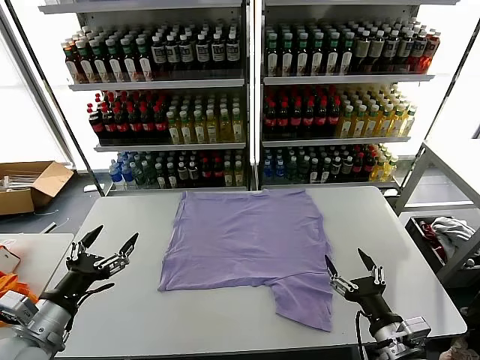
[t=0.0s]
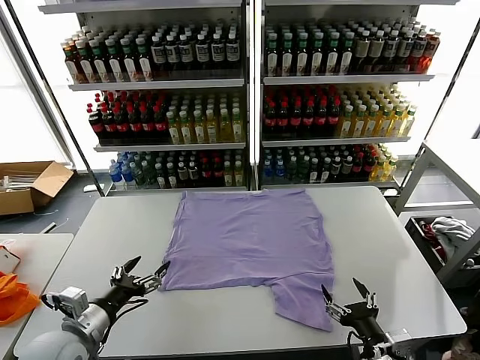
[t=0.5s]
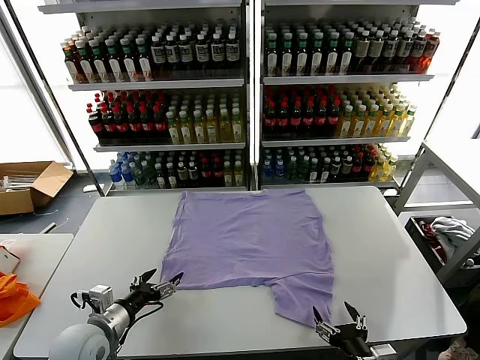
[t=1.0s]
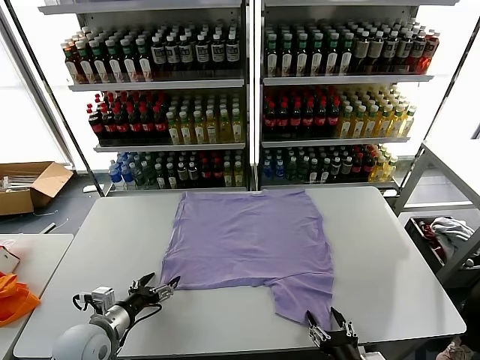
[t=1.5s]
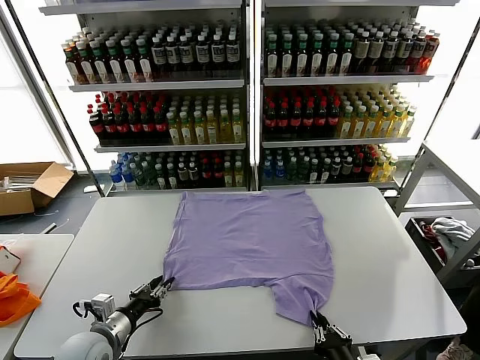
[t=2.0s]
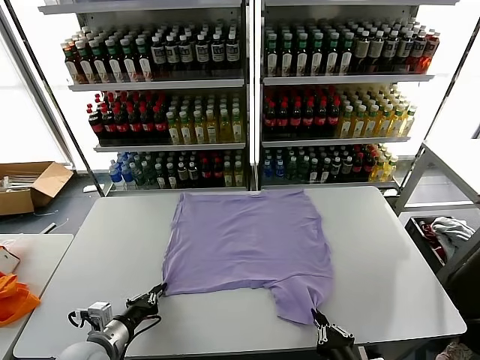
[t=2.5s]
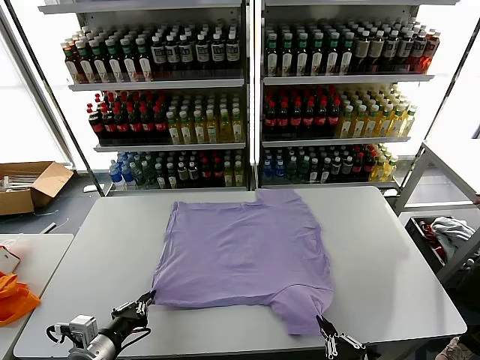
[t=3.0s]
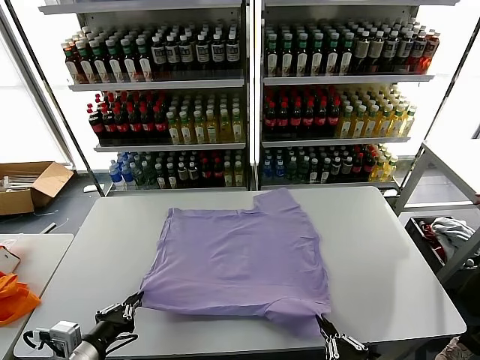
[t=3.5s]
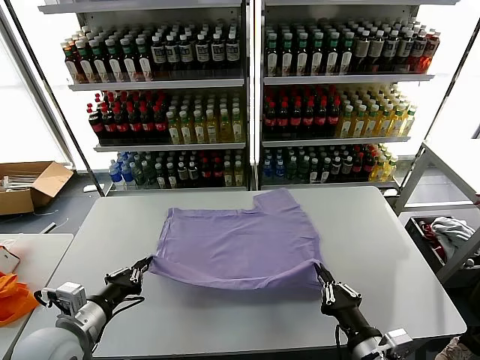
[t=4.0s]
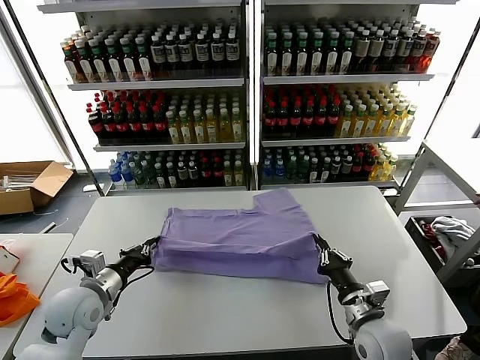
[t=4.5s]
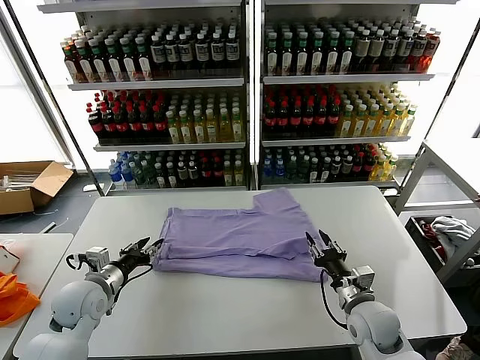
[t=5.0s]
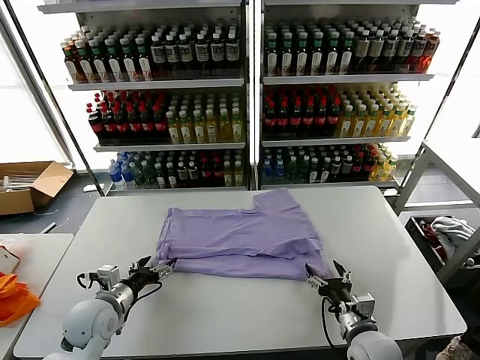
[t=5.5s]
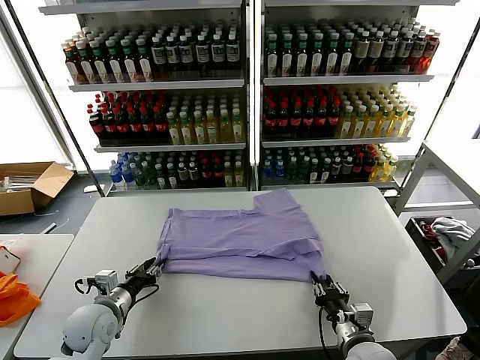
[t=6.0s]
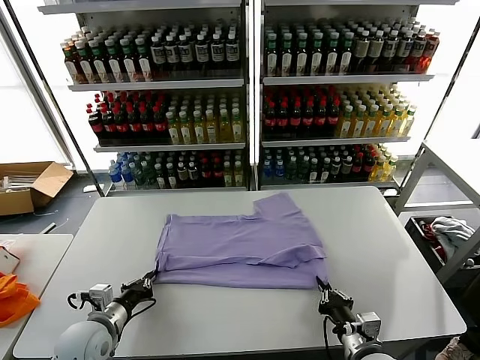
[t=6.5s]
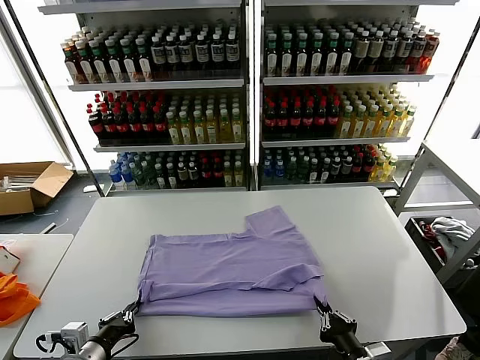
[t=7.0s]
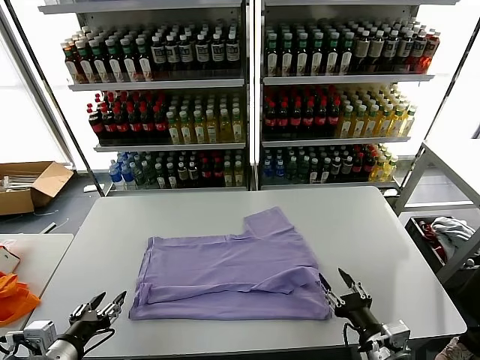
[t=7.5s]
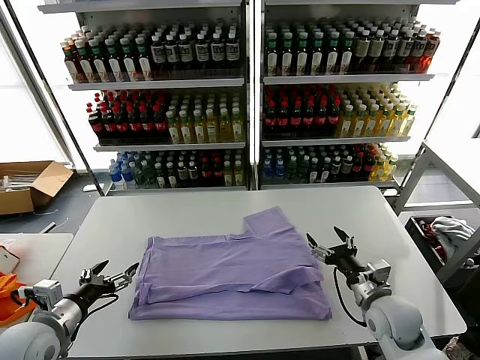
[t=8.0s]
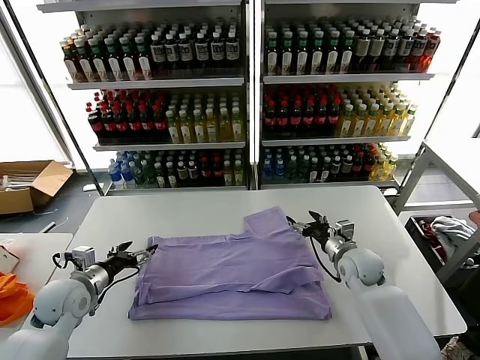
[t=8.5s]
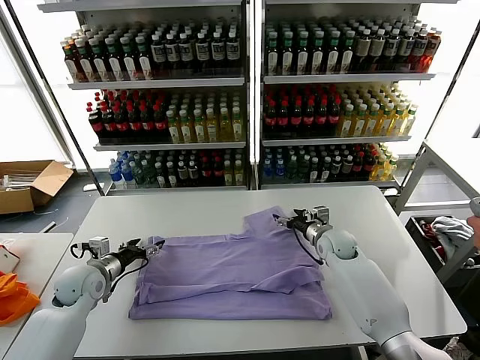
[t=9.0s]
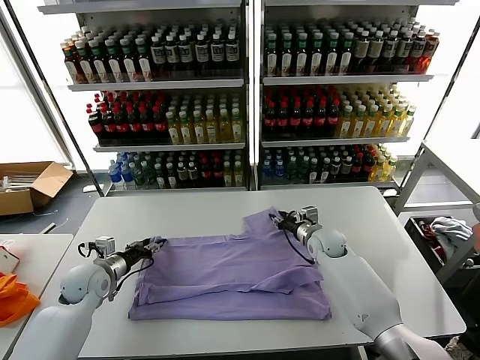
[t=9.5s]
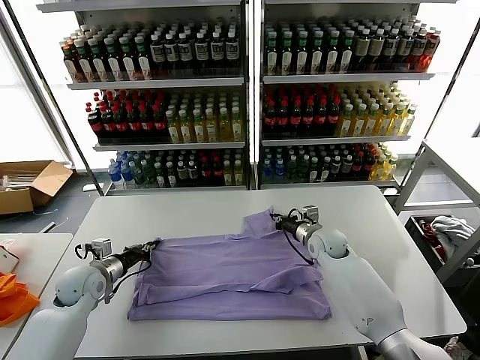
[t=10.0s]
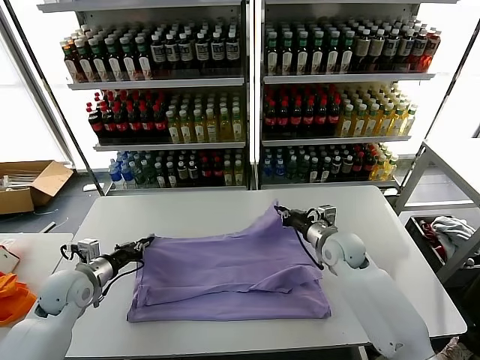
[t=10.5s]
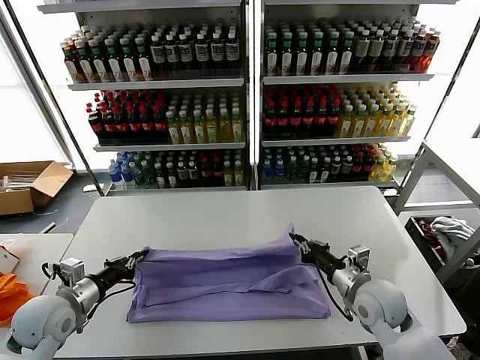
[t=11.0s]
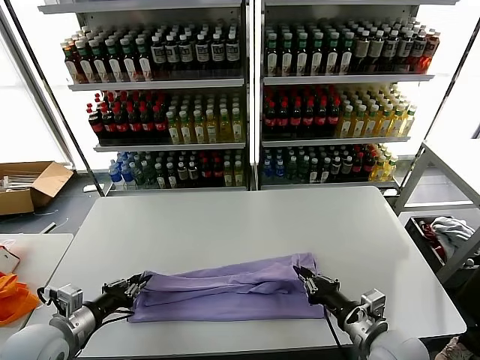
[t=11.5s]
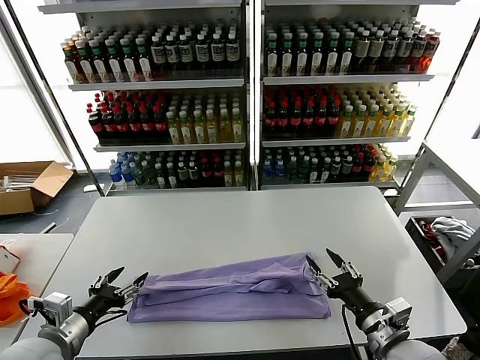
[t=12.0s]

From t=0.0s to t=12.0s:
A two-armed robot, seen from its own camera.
Task of the whole recording: fold and organize the clothes.
Step, from t=0.0s to t=2.0s: use both grippers simultaneously to clamp the lower edge of the clothing fabric.
Step, from t=2.5s to t=4.5s: use both grippers to drag the lower edge of the fabric forward and fold it over the upper edge.
Step, from t=5.0s to t=7.0s: Drag the clothes downward with both gripper.
Step, from t=7.5s to t=10.0s: use both grippers simultaneously to clamp the upper edge of the clothing fabric.
Step, from t=10.5s to t=11.5s: use both grippers to drag the upper edge of the fabric backward and fold it over the lower edge.
From t=2.0s to t=4.0s: The left gripper shifts roughly 10 cm upward, and closes its fingers. The right gripper is displaced upward by some 5 cm.
From t=4.0s to t=6.0s: Both grippers travel together downward and forward, some 10 cm. The right gripper opens, then closes once more; the left gripper opens its fingers.
From t=6.0s to t=8.0s: The left gripper heads upward, backward and to the left, covering about 10 cm, and opens. The right gripper moves forward and upward, roughly 10 cm, and opens its fingers.
From t=8.0s to t=10.0s: The left gripper heads forward and downward, covering approximately 20 cm, and closes, while the right gripper travels forward and to the left by some 20 cm, and closes its fingers.
From t=10.0s to t=12.0s: The right gripper goes about 30 cm backward, and opens its fingers, while the left gripper travels backward and upward by some 20 cm, and opens its fingers.

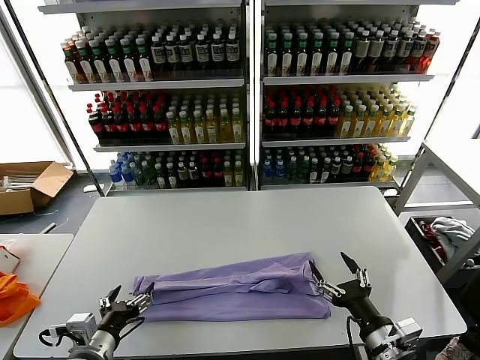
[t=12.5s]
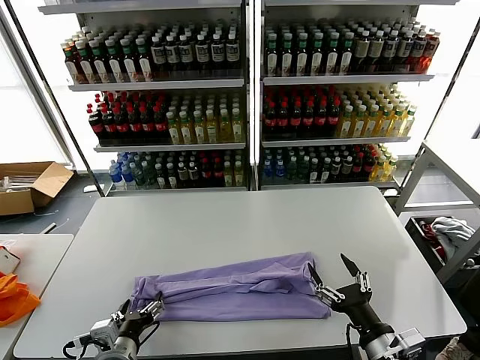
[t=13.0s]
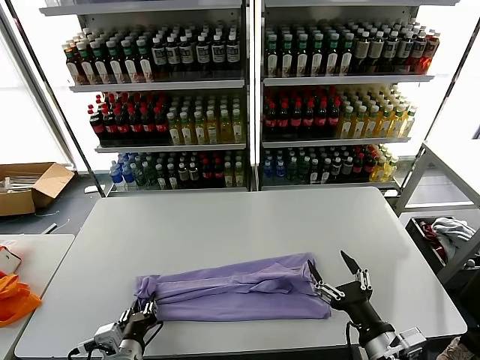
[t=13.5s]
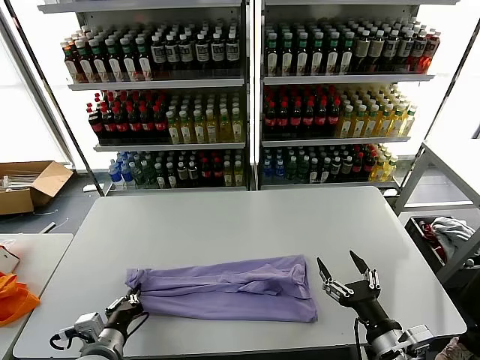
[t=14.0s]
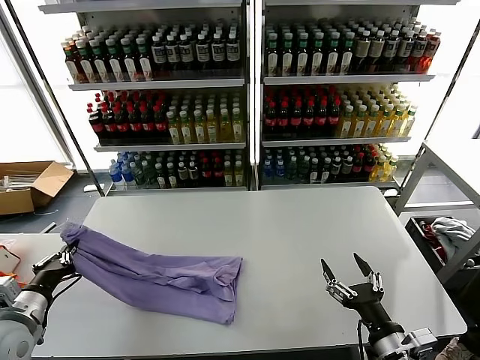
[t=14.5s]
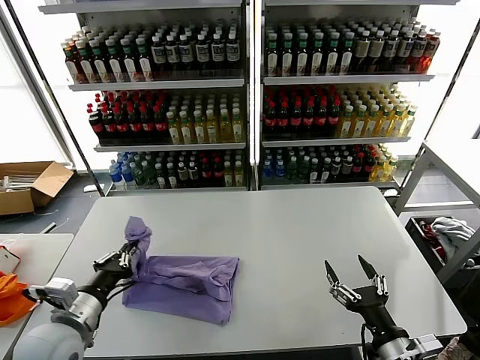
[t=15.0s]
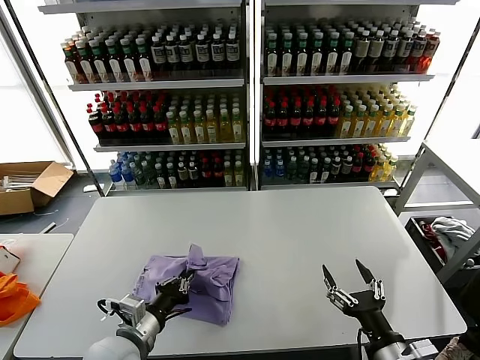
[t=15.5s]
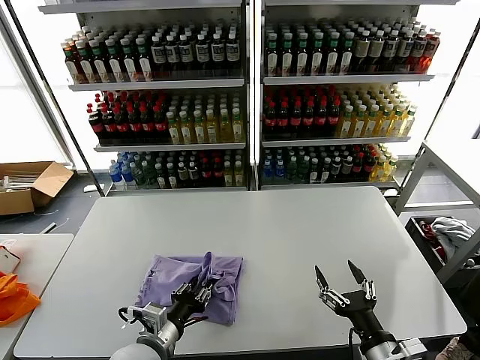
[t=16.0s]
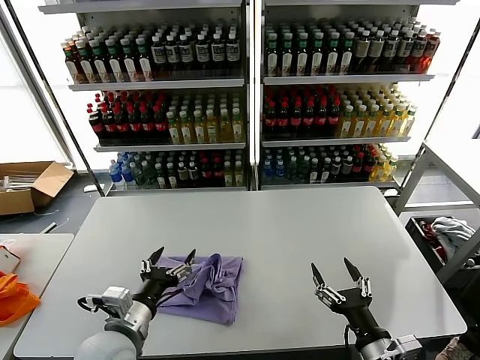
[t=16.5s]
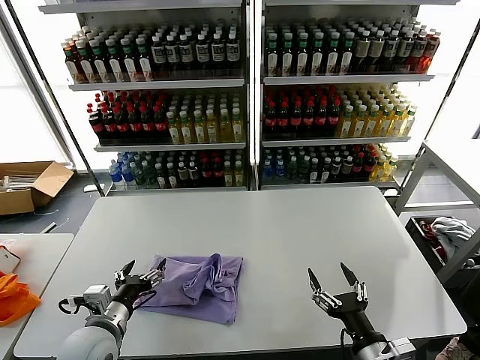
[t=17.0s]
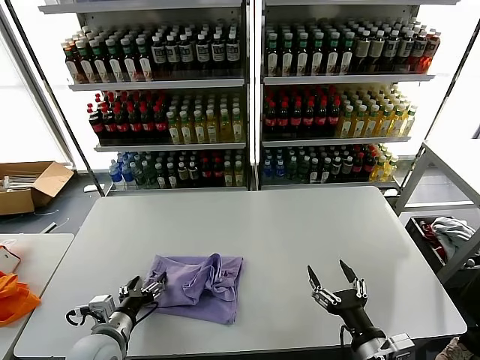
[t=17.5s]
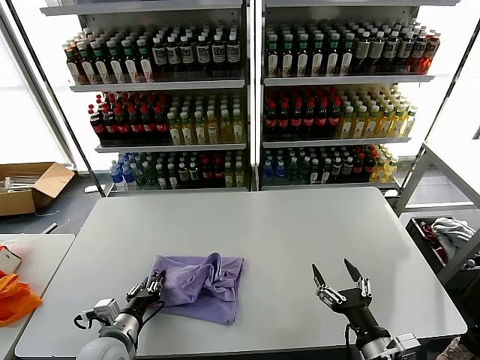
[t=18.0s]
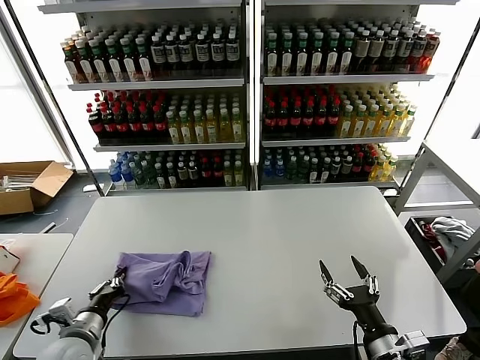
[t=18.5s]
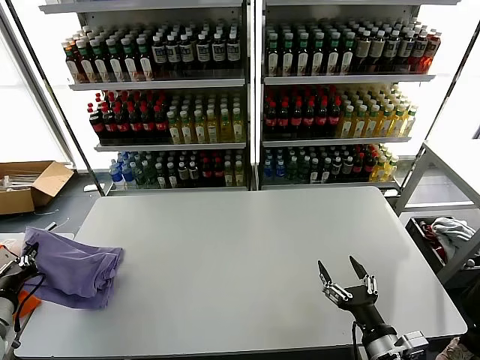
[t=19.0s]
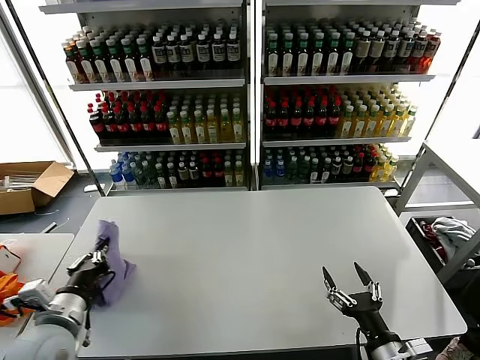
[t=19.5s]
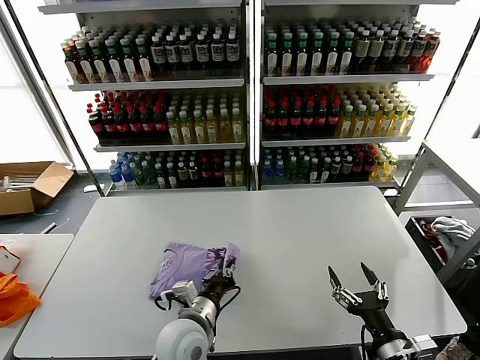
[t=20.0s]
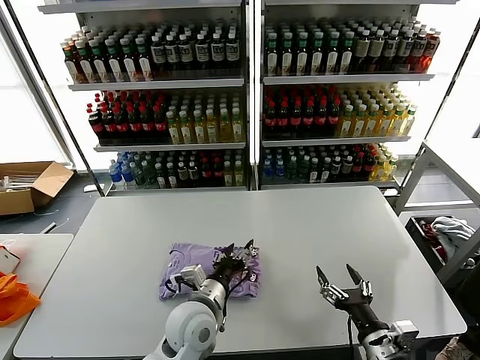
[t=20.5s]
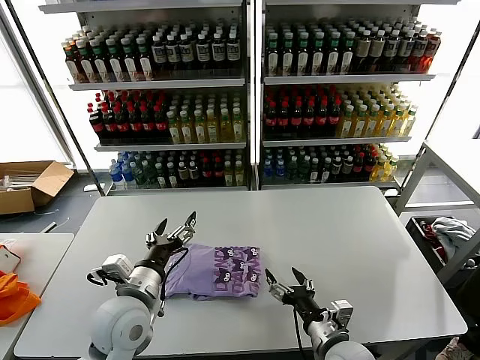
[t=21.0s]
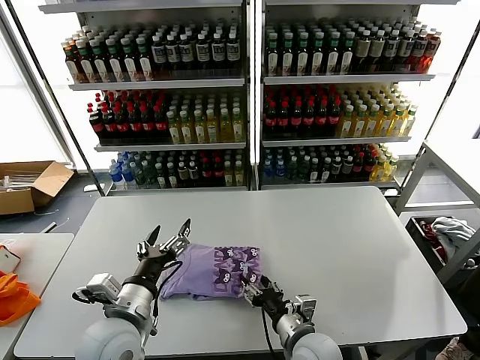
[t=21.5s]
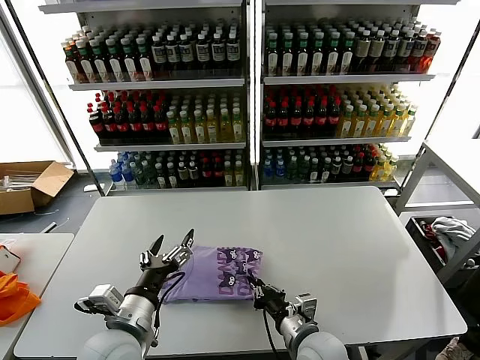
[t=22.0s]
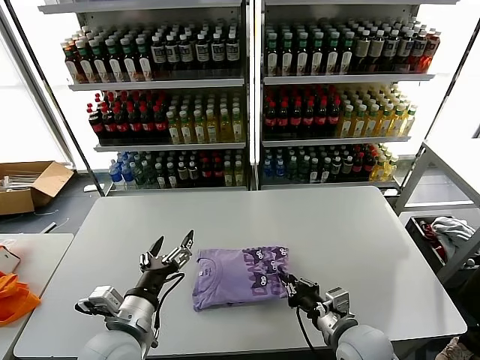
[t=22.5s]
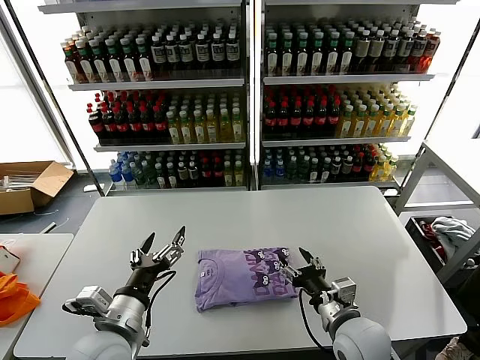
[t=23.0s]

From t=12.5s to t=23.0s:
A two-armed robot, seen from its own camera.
Task of the whole recording: fold and organize the clothes.
Step, from t=12.5s to t=13.5s: use the left gripper to clamp the left edge of the fabric.
Step, from t=14.0s to t=16.0s: use the left gripper to drag the left edge of the fabric to the left and folds it over the right edge.
Step, from t=16.5s to t=20.0s: Flip the folded clothes over with left gripper.
From t=12.5s to t=14.5s: The left gripper moves to the left, approximately 10 cm, and closes up.
From t=14.5s to t=16.5s: The left gripper goes some 20 cm to the right, and opens.
From t=16.5s to t=19.0s: The left gripper is displaced to the left by about 25 cm, and closes its fingers.
From t=19.0s to t=21.0s: The left gripper heads to the right, covering about 25 cm, and opens its fingers; the right gripper goes about 10 cm to the left and forward.
From t=21.0s to t=23.0s: The left gripper goes approximately 5 cm backward, while the right gripper reaches some 5 cm to the left, then returns, and closes and opens again.

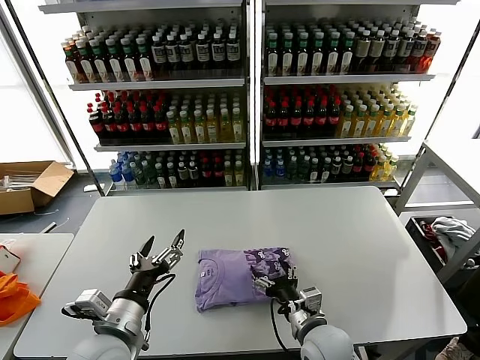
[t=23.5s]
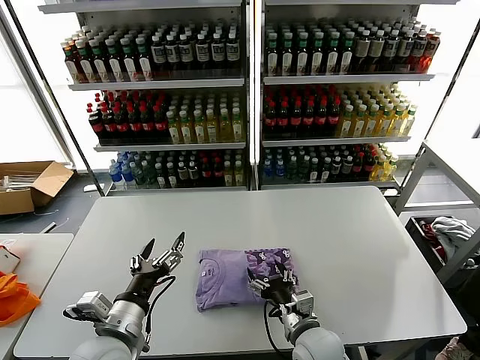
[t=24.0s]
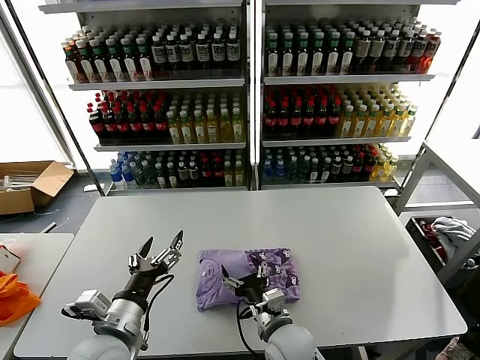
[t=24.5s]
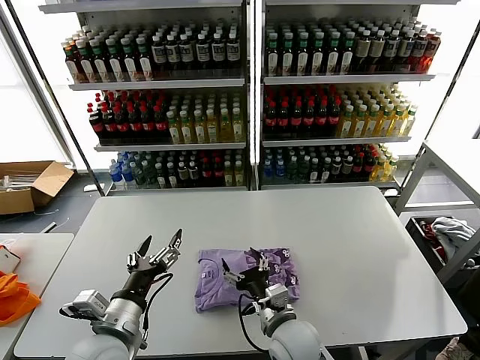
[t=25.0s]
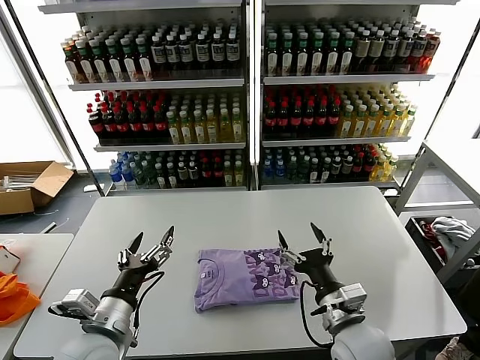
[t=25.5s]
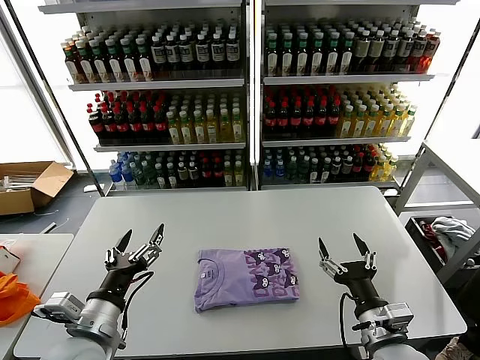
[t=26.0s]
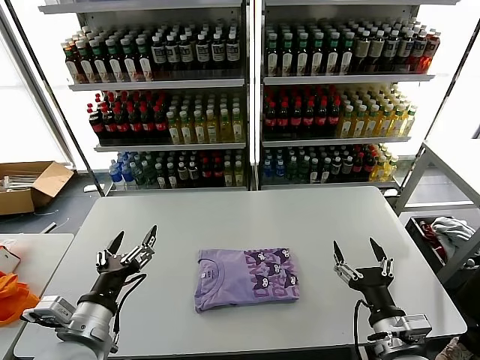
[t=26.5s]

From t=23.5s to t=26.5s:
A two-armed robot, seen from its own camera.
Task of the whole recording: fold and organize the clothes.
From t=23.5s to t=25.0s: The right gripper travels to the left by about 10 cm.
From t=25.0s to t=26.5s: The right gripper is displaced to the right and backward by about 20 cm.
